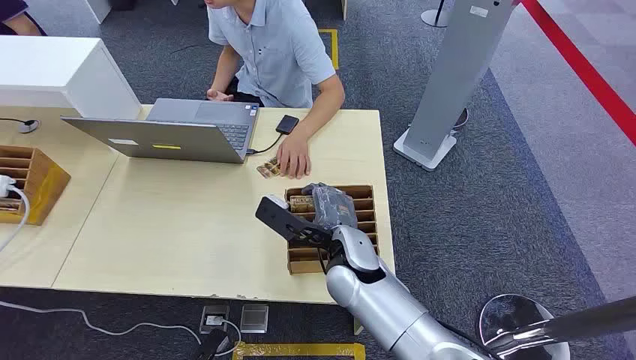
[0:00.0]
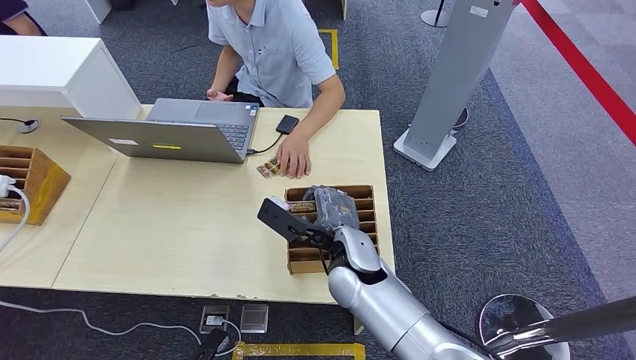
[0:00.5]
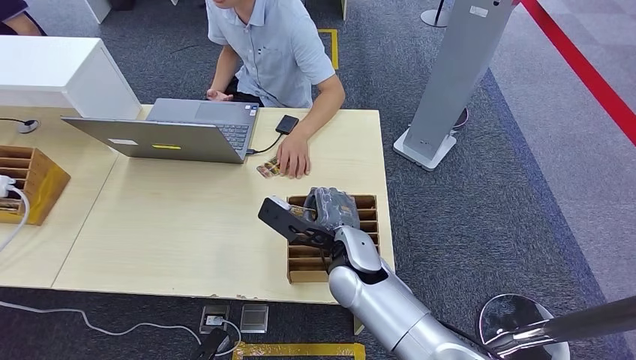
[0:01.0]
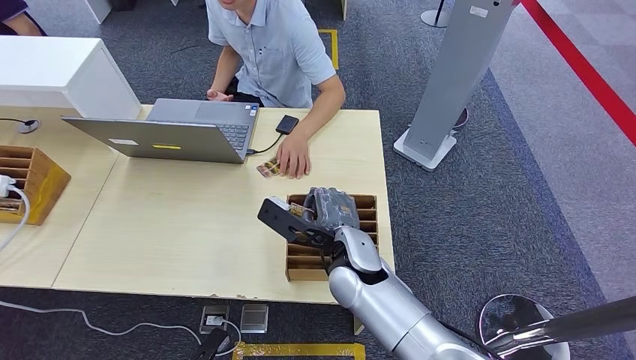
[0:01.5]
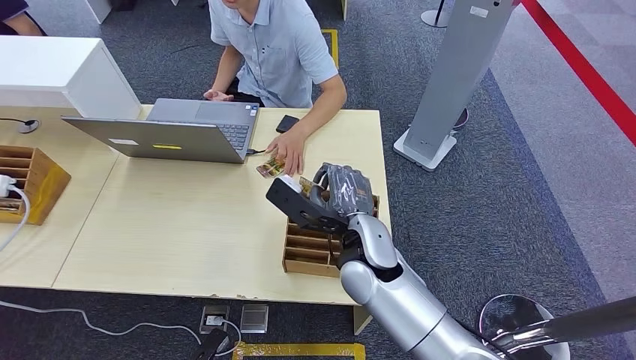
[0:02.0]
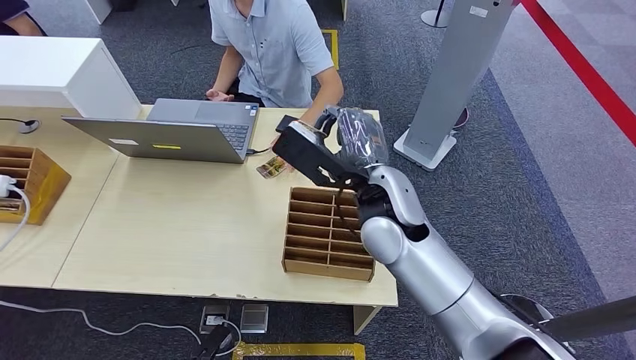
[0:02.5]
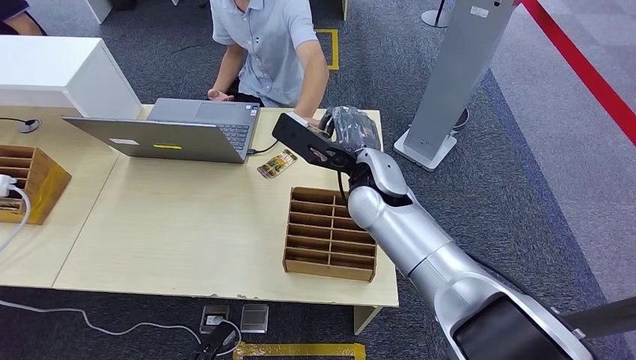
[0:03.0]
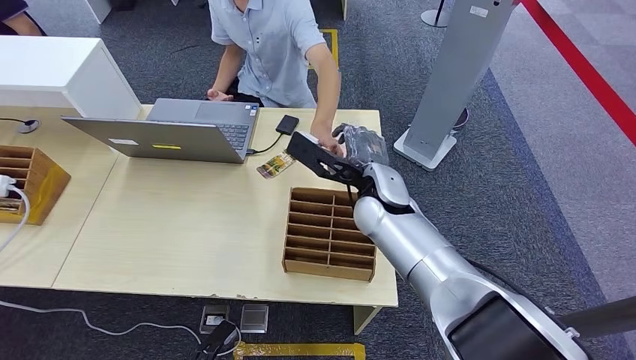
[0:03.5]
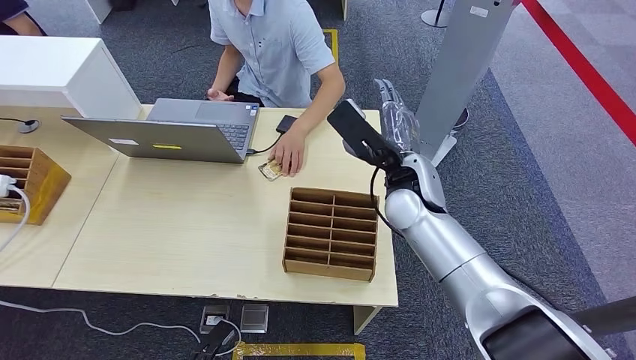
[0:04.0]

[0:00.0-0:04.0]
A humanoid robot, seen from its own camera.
Step, 0:00.0 to 0:02.0: Pick up the room card from the card holder.
Step, 0:03.0 to 0:04.0: Hand the room card to the target.
0:02.0 to 0:04.0: The right hand heads to the right, covering about 10 cm.
